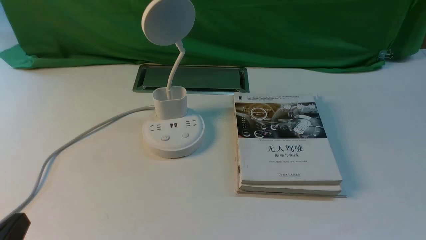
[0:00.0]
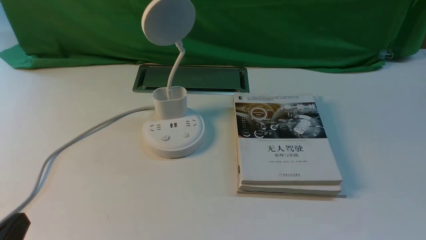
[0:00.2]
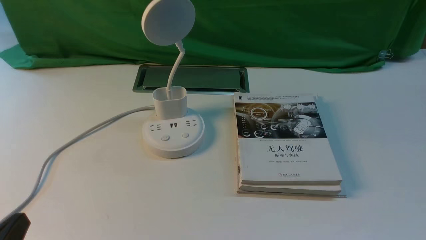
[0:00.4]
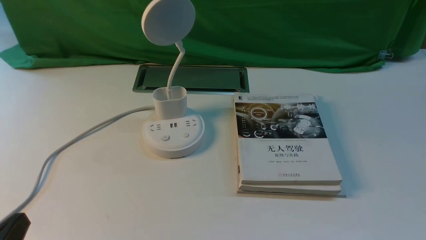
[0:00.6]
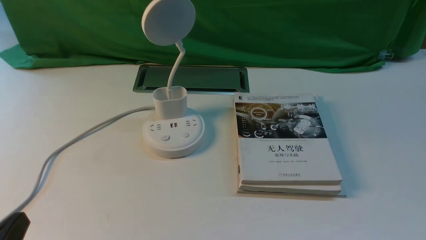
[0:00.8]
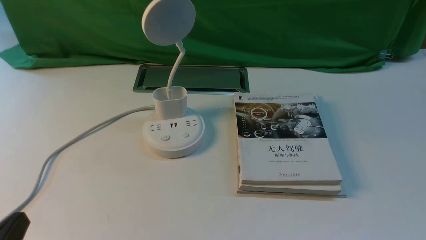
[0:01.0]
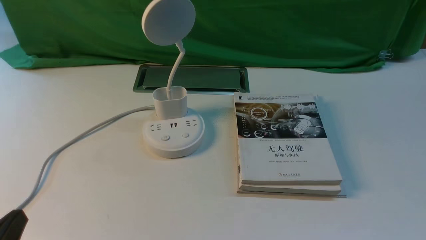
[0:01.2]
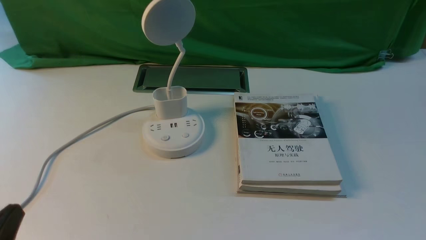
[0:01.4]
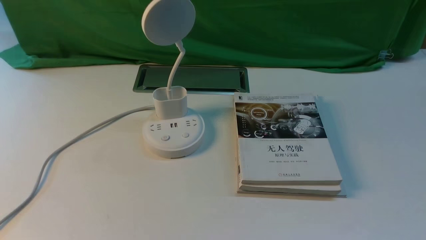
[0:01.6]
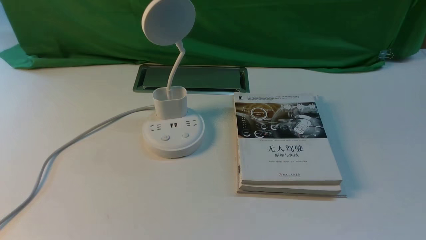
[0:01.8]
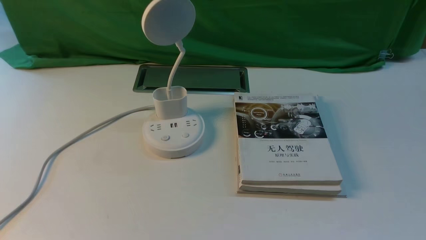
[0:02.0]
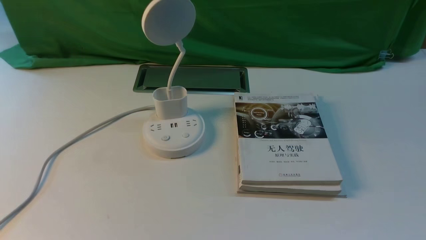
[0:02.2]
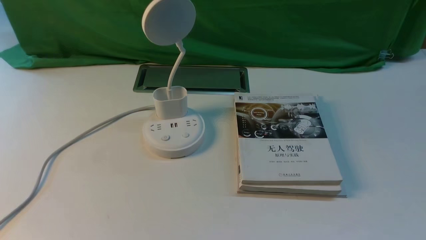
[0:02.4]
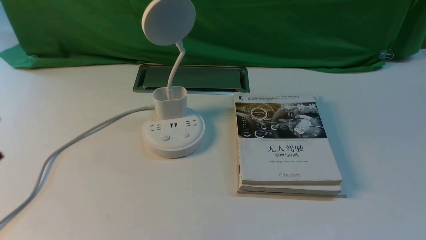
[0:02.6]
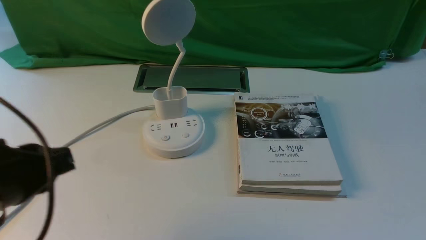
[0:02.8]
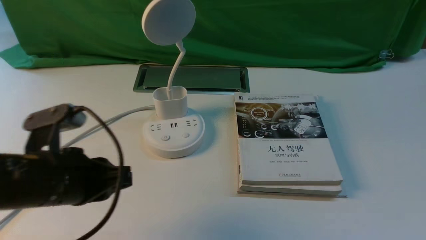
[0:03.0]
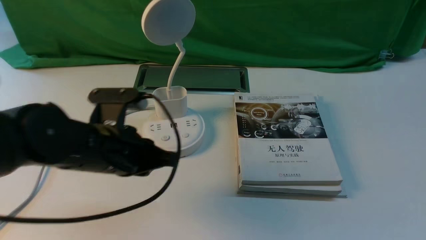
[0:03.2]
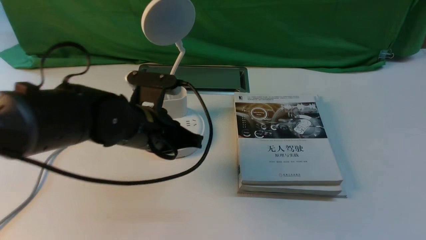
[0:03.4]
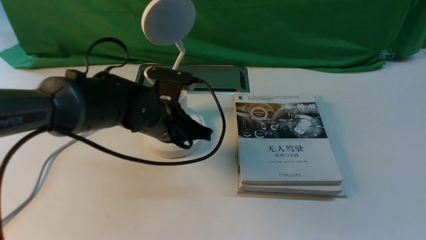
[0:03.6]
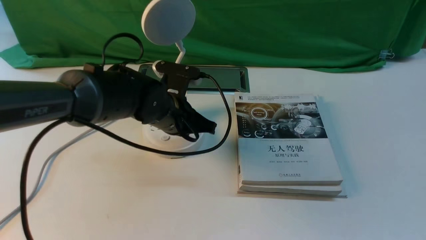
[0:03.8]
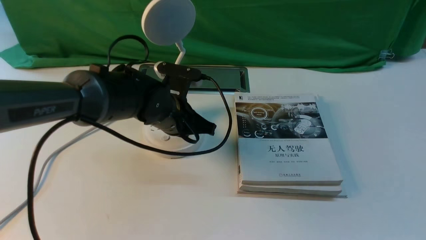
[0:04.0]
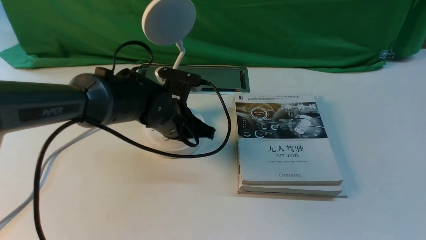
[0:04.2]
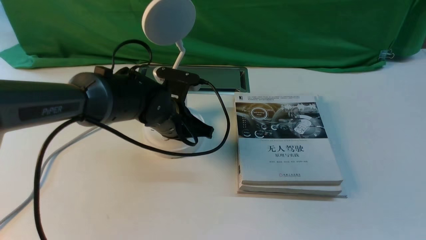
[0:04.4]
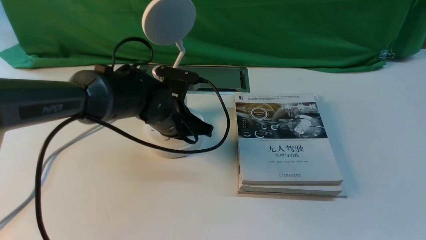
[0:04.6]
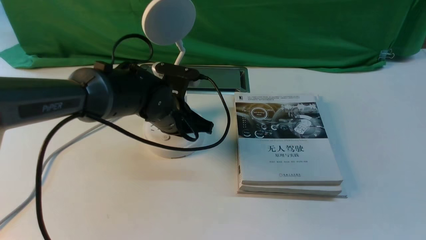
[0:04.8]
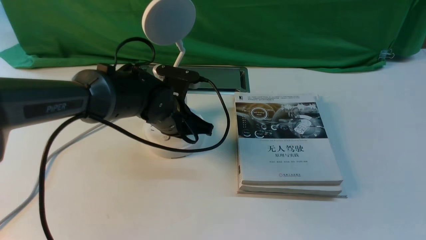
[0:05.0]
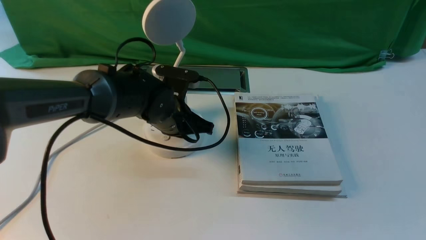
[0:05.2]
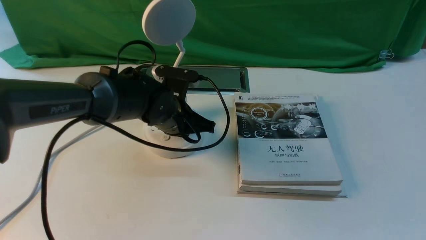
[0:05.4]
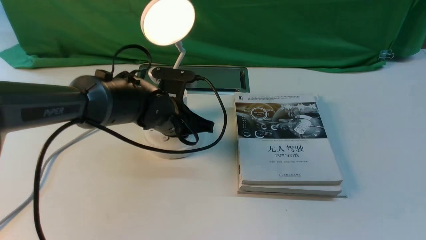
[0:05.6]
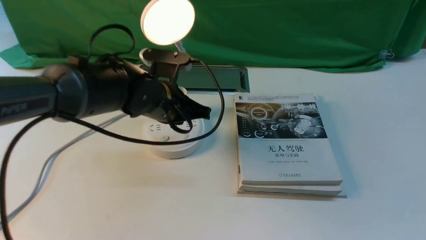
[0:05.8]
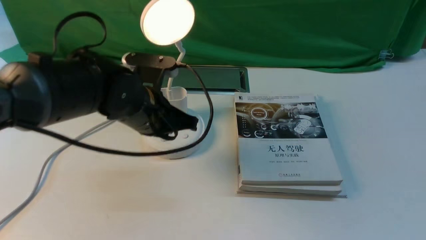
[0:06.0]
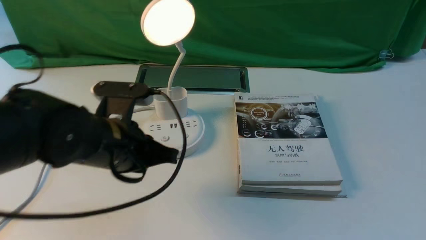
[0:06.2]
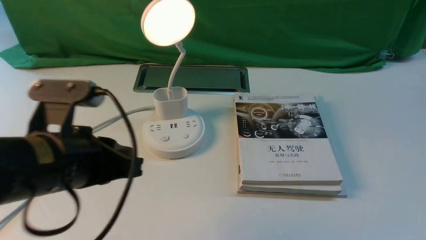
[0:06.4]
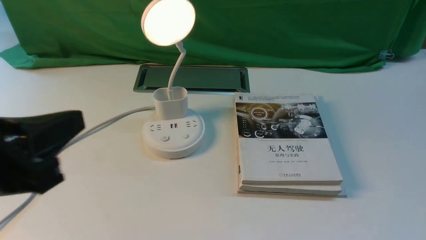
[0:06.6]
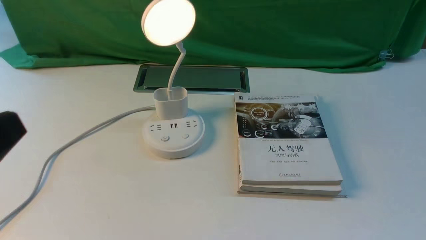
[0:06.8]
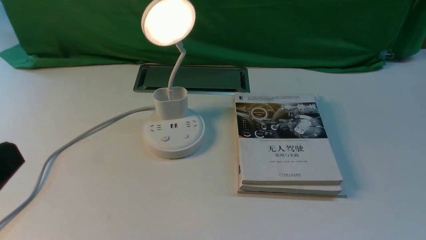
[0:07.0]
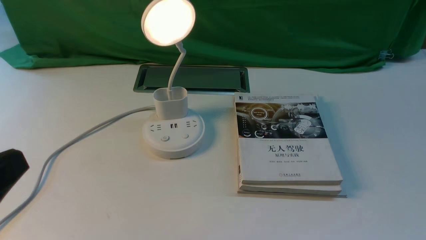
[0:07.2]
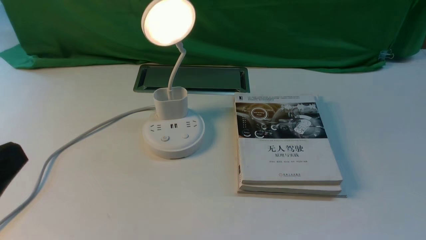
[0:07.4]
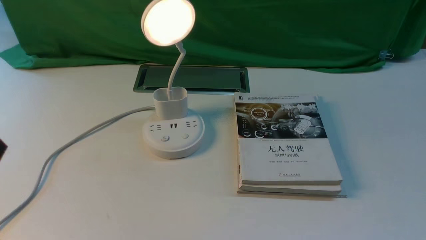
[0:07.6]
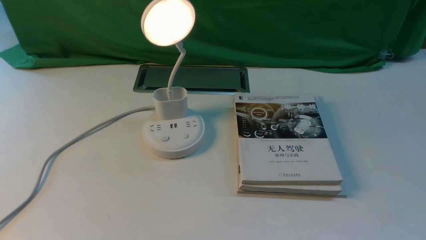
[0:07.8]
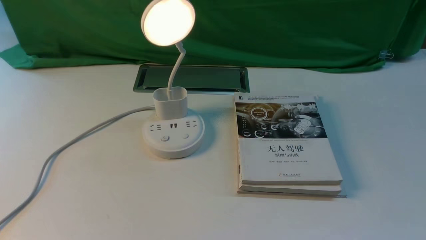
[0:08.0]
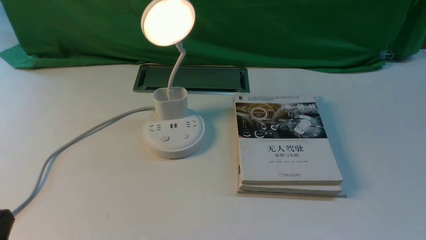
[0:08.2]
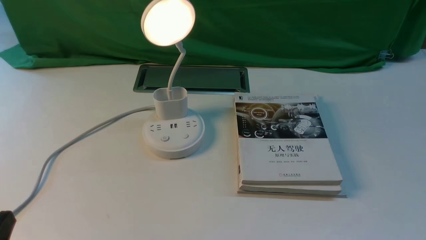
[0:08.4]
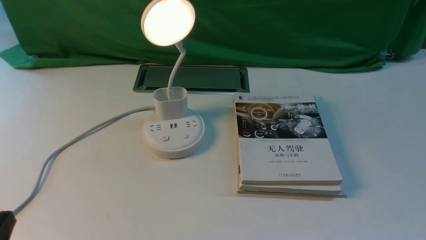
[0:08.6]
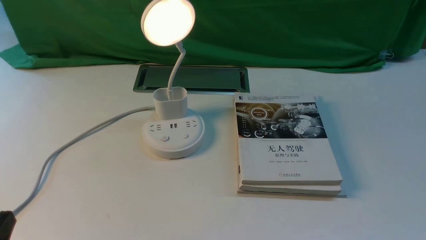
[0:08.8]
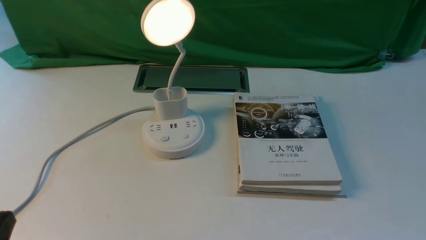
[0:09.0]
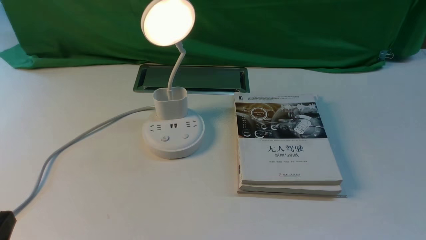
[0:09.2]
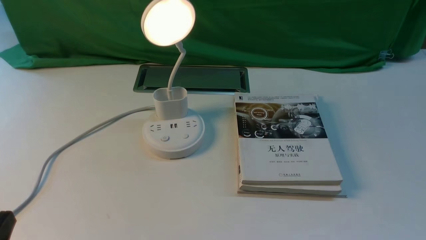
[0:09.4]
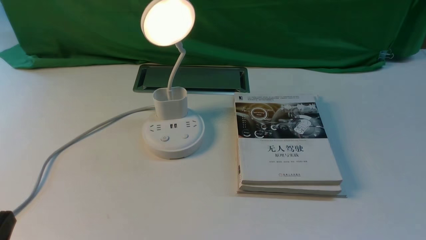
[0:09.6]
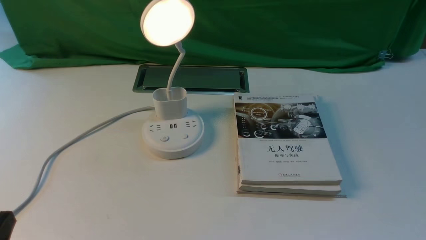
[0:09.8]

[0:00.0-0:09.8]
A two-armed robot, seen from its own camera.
Step, 0:00.0 to 0:06.0: use the left arm to press the button switch on the lamp holder.
0:01.4 to 0:02.8: The left gripper is displaced forward and upward by about 15 cm.
0:02.8 to 0:04.2: The left gripper moves forward, to the right and downward, about 25 cm.
0:04.2 to 0:05.6: The grippers make only small movements.
0:05.6 to 0:07.0: The left gripper is displaced backward, to the left and upward by roughly 40 cm.
0:07.0 to 0:08.4: The left gripper goes roughly 15 cm downward, and opens its fingers.
